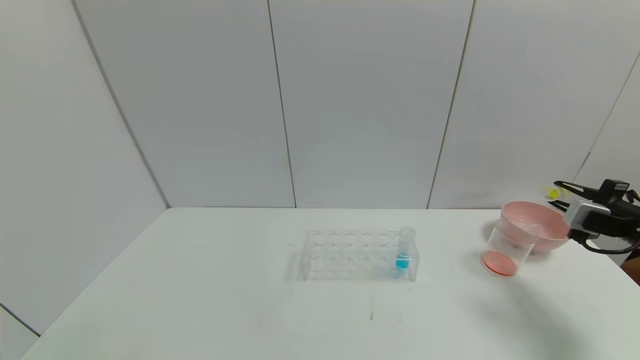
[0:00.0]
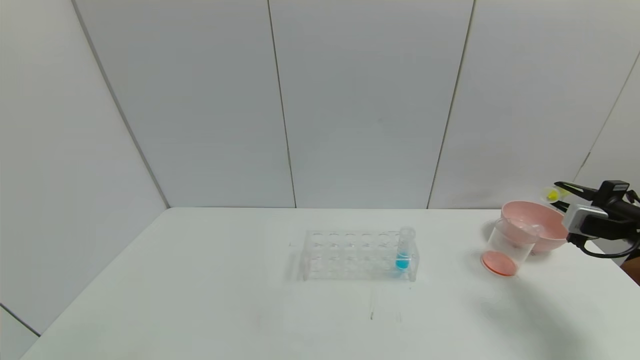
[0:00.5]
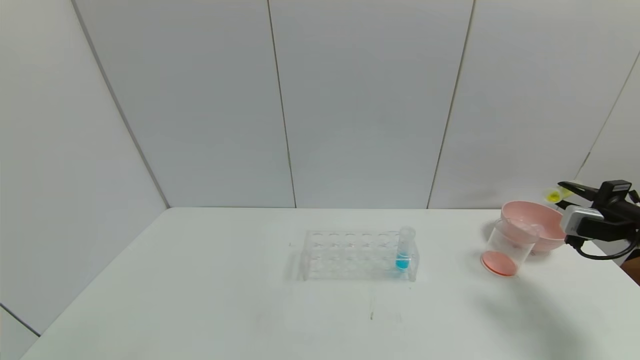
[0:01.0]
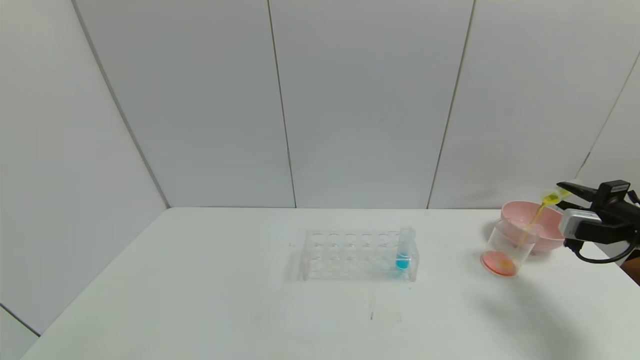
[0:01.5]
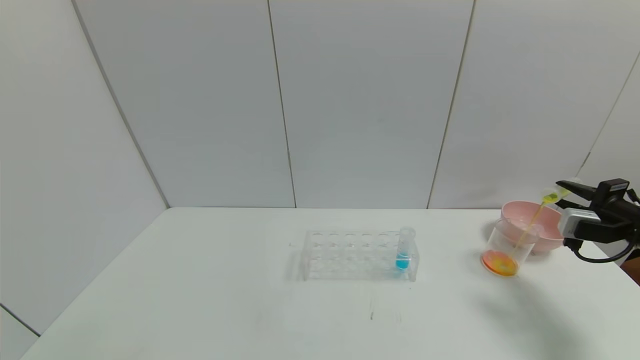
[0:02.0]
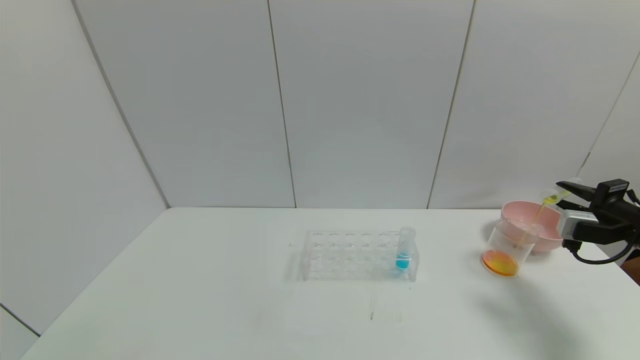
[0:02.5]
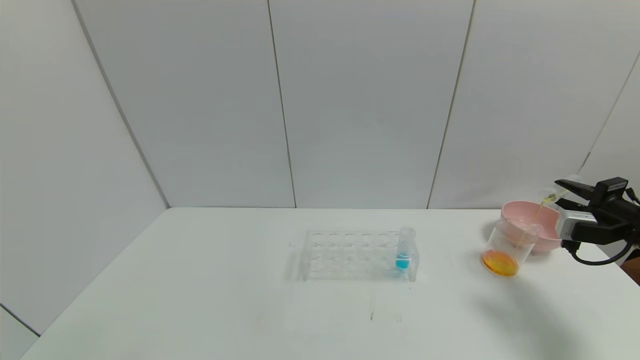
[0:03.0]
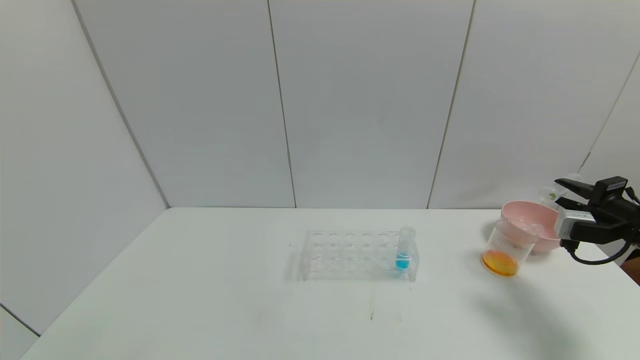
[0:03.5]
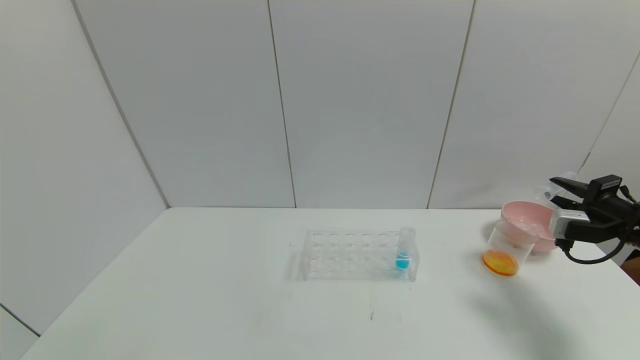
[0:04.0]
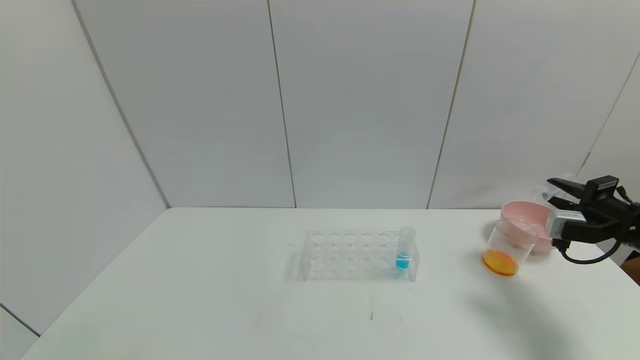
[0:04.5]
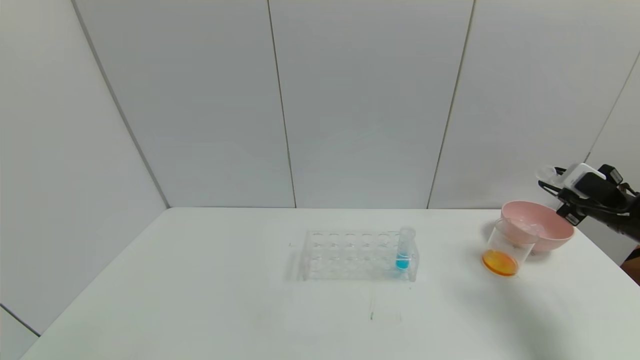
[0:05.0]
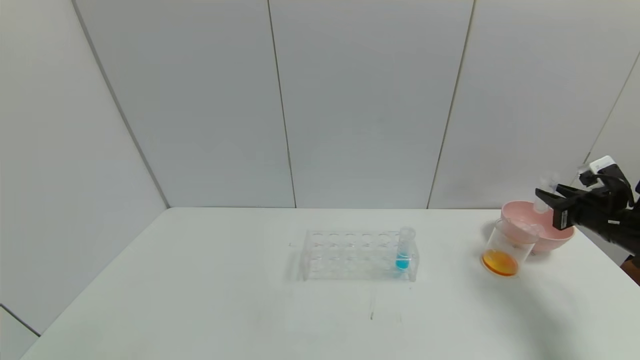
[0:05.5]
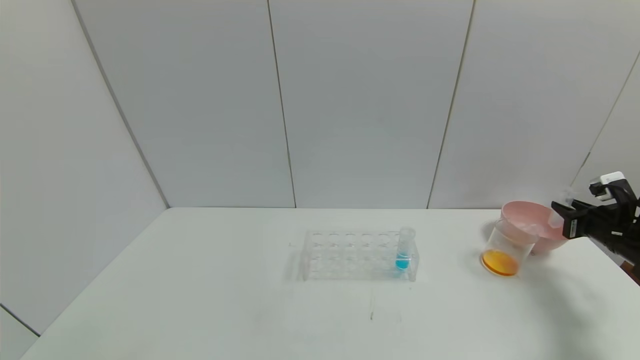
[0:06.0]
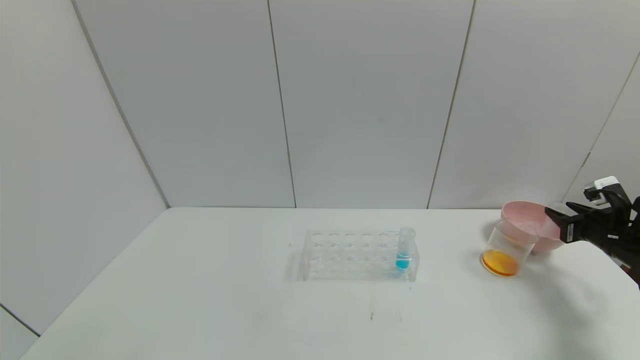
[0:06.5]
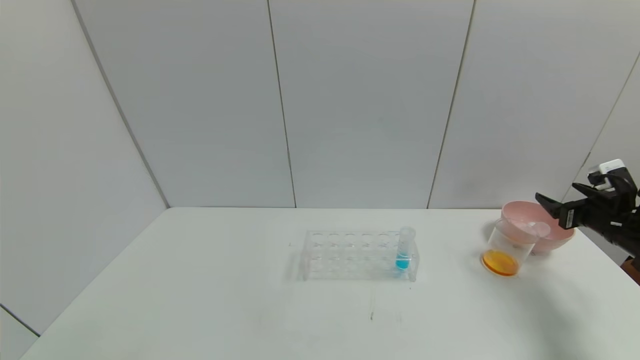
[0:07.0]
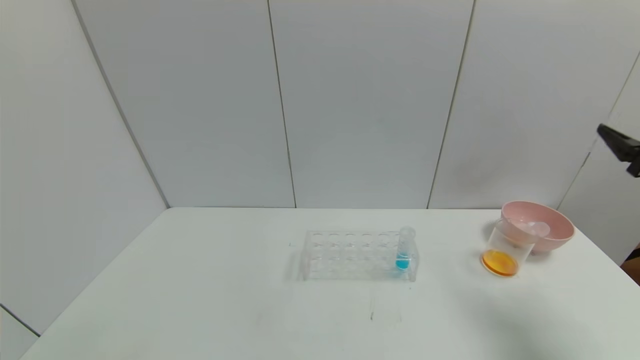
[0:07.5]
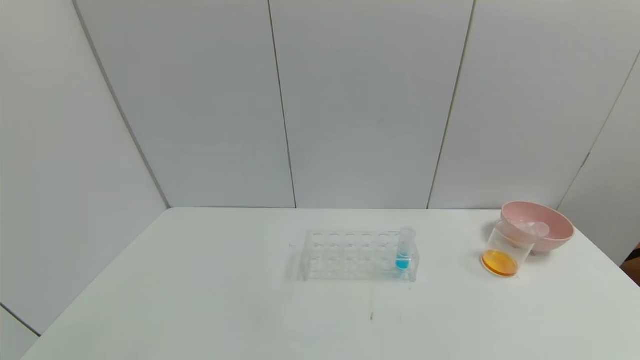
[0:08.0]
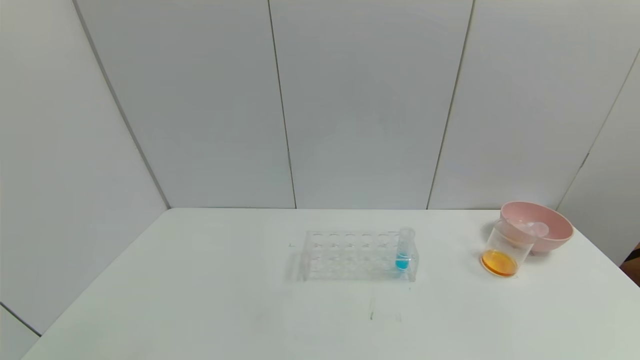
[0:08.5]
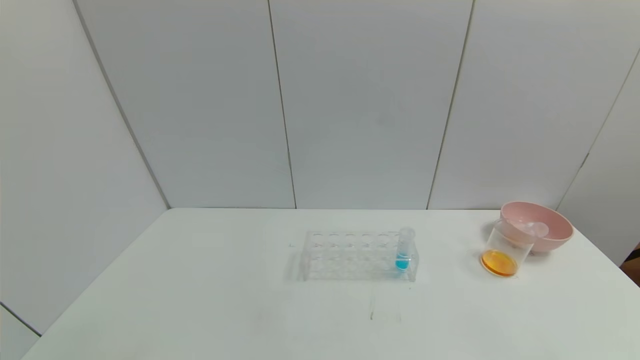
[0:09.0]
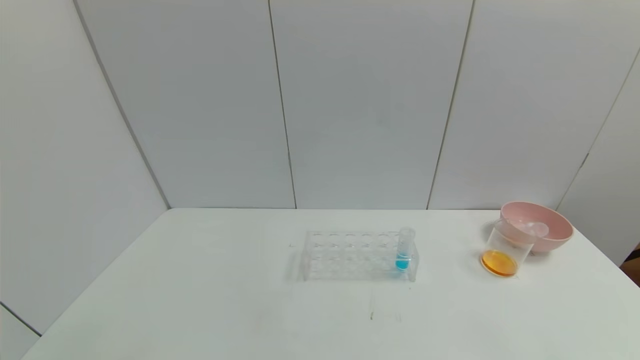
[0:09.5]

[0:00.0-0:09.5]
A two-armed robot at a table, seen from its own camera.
Task of the whole recording: pick up the test tube with yellow pigment and the test tube with red pigment by grippers and pour them into the beaker.
Step, 0:00.0 to 0:05.5: Pour the yellow reagent into the graduated cylinder with right gripper.
Step, 0:06.0 to 0:07.5: Place the test tube into the bowl with right gripper.
0:00.0 to 0:04.0: The grippers move only a little.
0:05.5 to 0:07.5: The right gripper goes some 15 cm upward and backward, and opens its fingers.
0:07.5 to 0:09.5: The right gripper is displaced backward and downward by some 35 cm.
